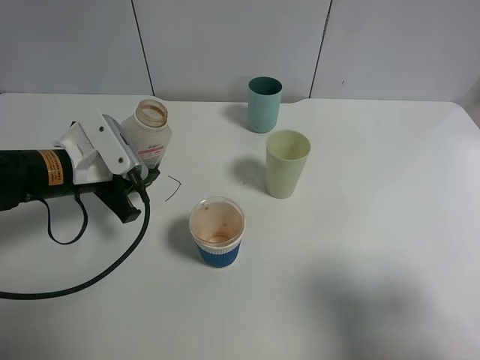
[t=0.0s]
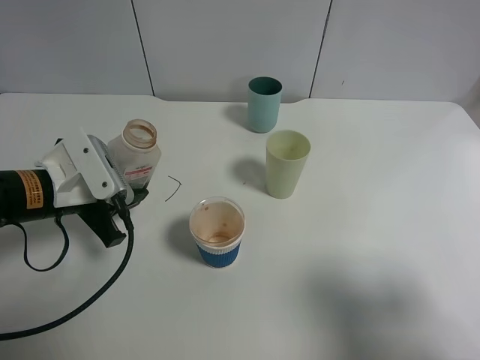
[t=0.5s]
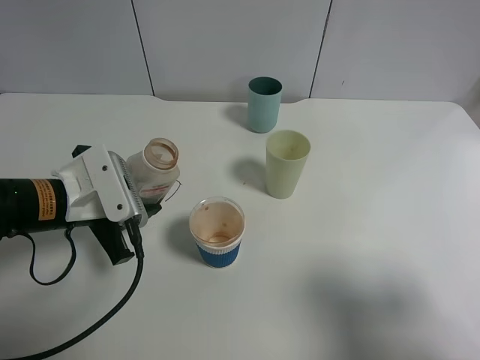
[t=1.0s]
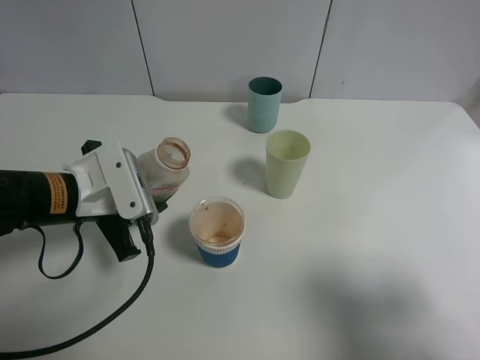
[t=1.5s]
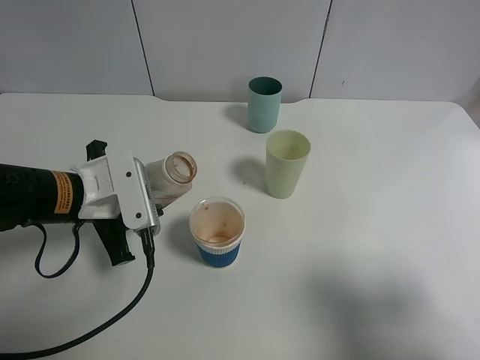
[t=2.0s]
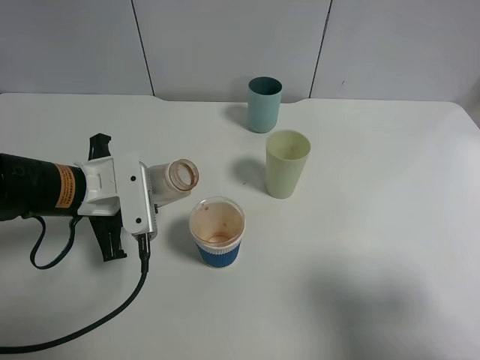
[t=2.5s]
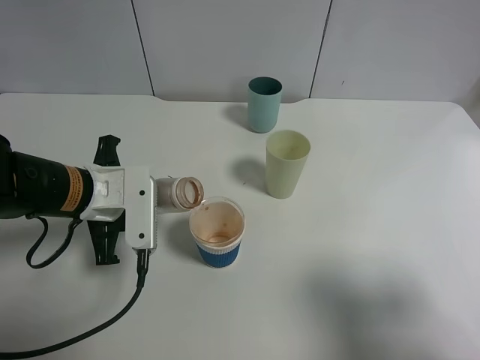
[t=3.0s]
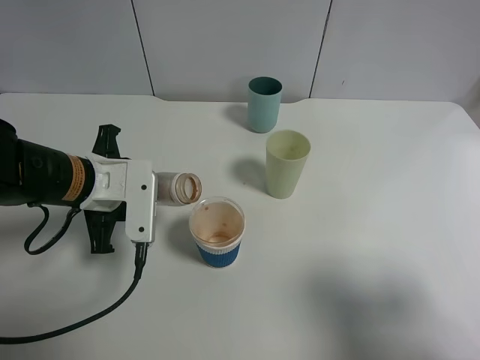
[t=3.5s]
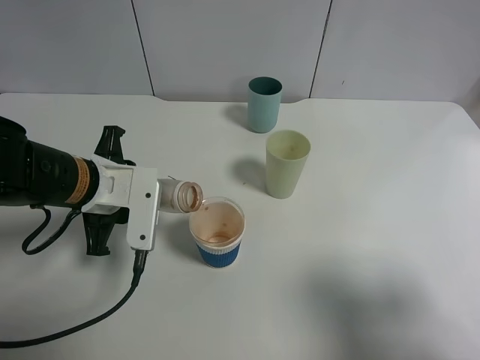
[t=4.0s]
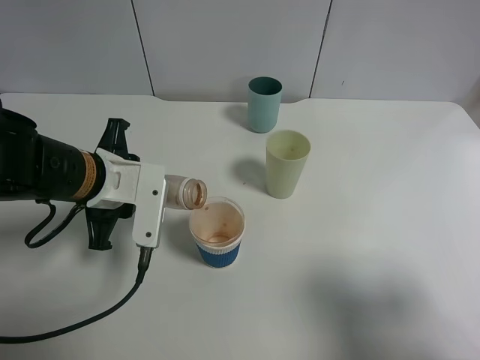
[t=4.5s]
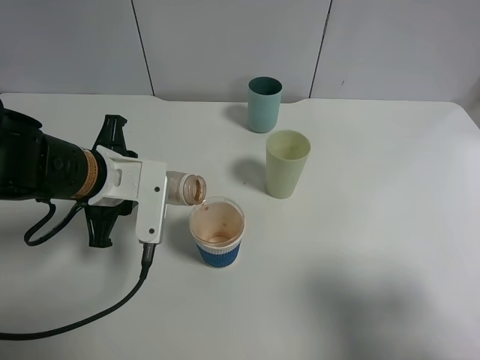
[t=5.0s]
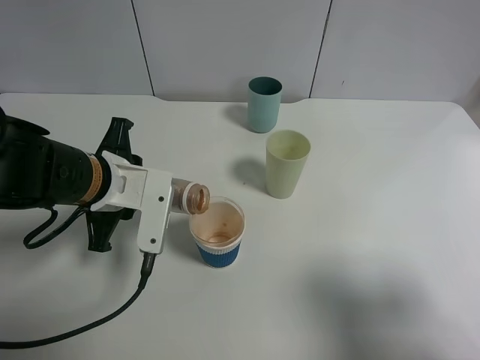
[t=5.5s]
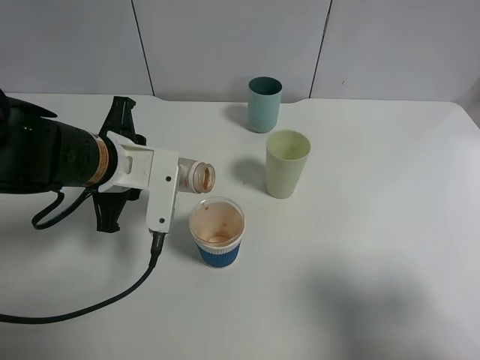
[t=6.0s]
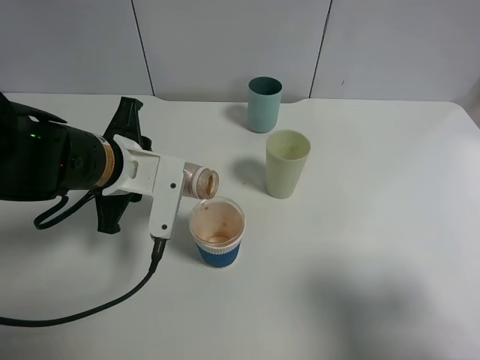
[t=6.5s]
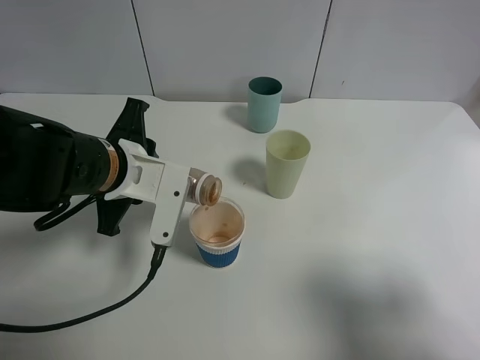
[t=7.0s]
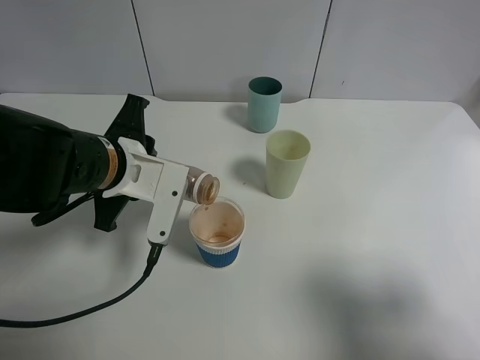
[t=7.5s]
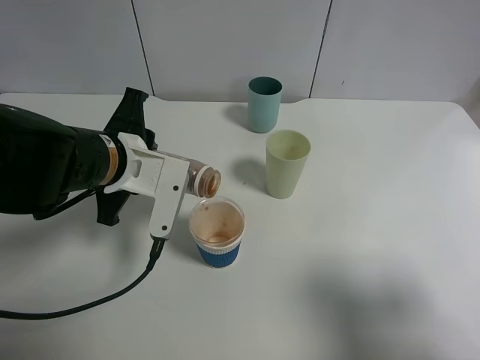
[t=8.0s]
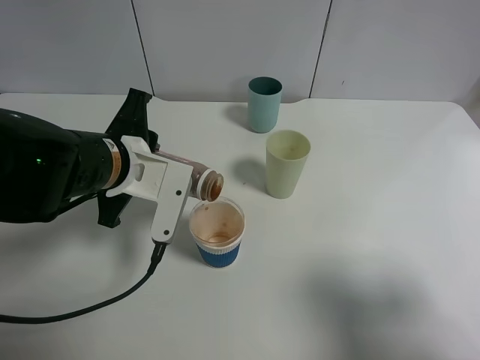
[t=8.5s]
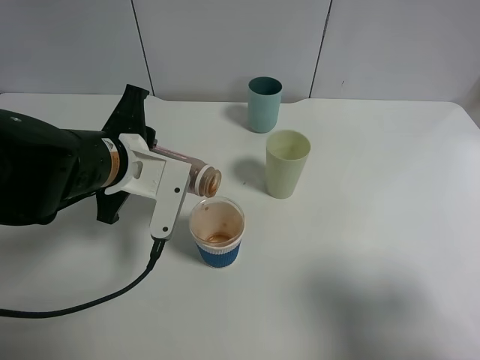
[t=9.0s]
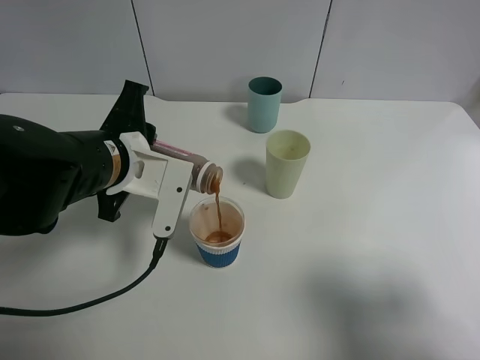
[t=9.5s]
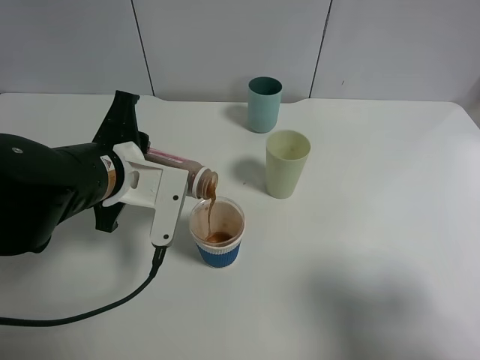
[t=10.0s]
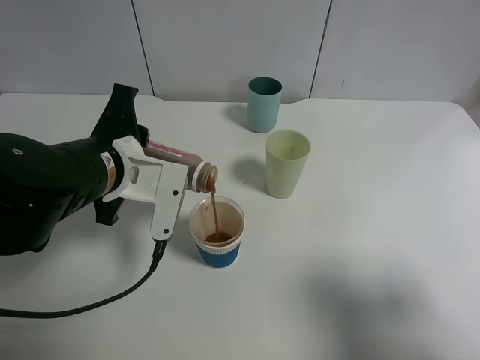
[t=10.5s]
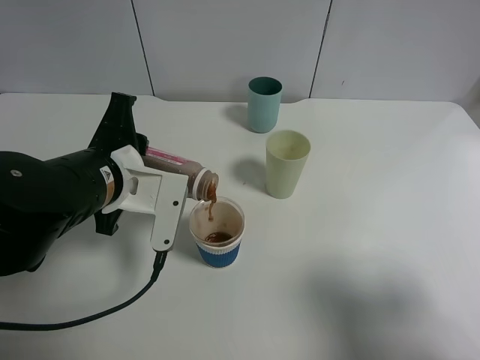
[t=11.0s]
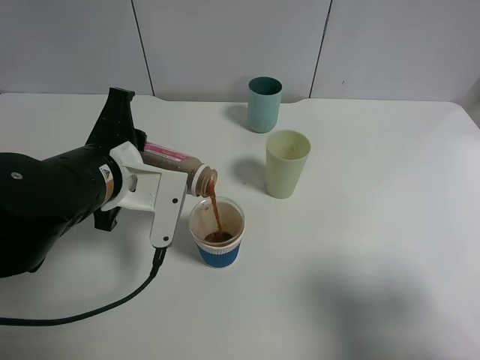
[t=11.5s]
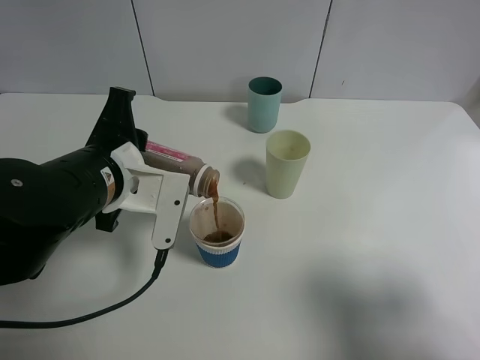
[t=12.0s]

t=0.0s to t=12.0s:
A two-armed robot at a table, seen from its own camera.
Task of the whole recording: use a gripper to hold the bottle of the drink and pour it into a random cup.
t=0.0s to t=2.0s: The grippers make only small movements.
t=4.0s to t=6.0s: The grippers make only small movements.
t=6.0s to t=10.0s: The grippers make only small movements.
t=10.0s to t=12.0s: There are only small adjustments of the grippers.

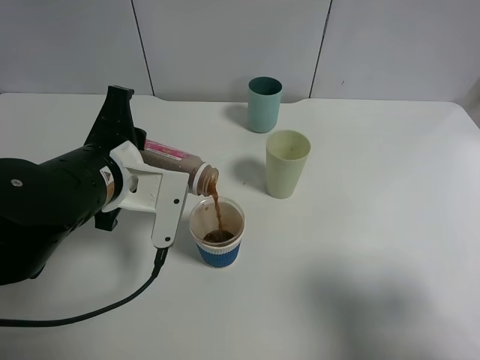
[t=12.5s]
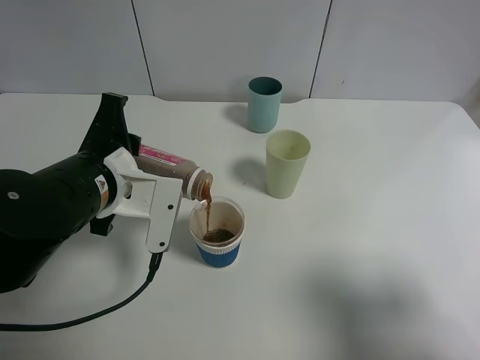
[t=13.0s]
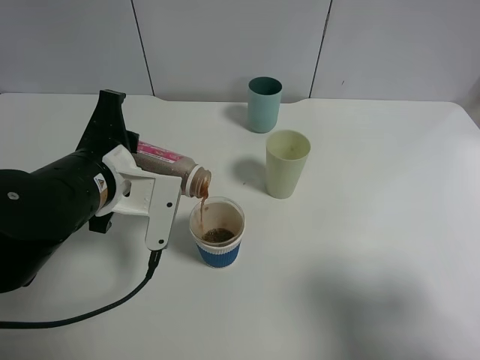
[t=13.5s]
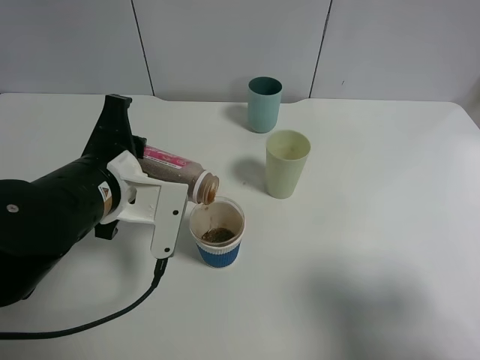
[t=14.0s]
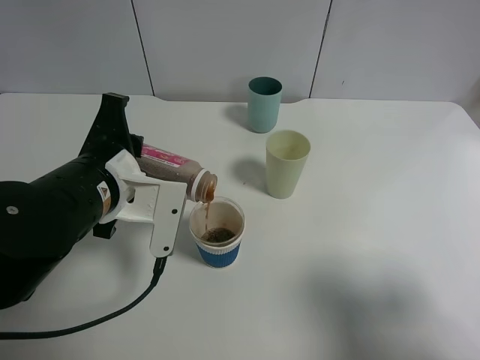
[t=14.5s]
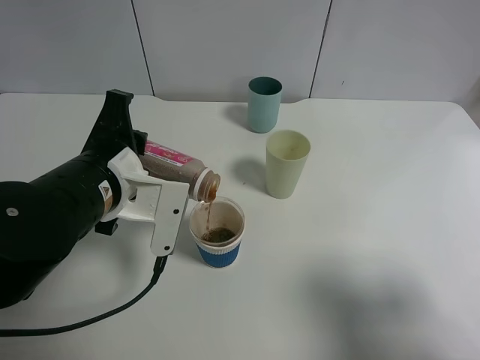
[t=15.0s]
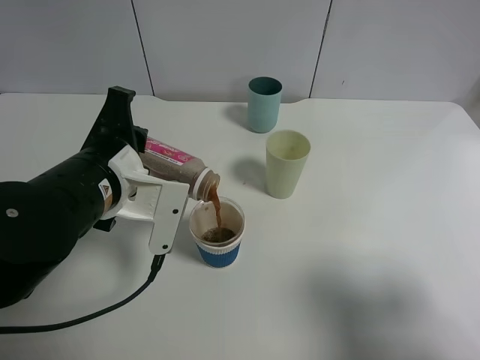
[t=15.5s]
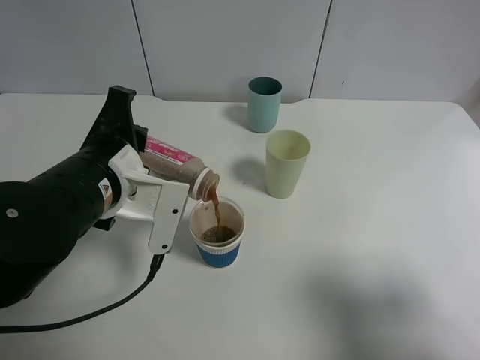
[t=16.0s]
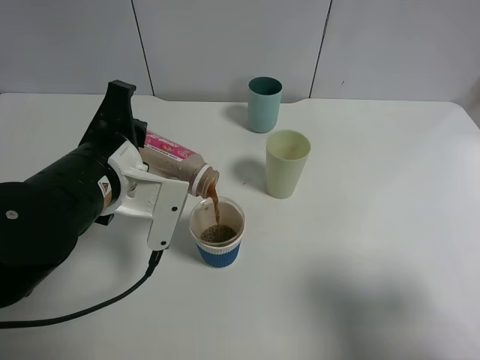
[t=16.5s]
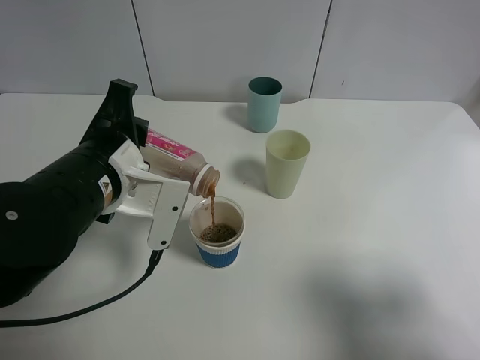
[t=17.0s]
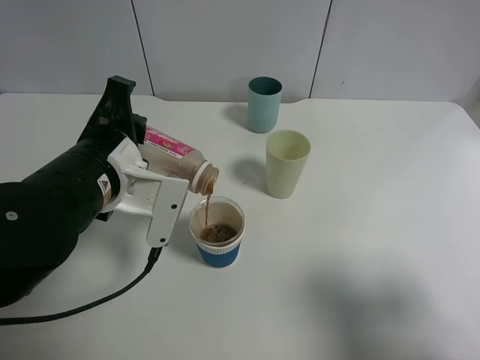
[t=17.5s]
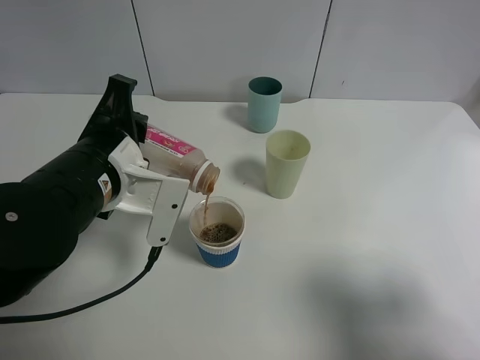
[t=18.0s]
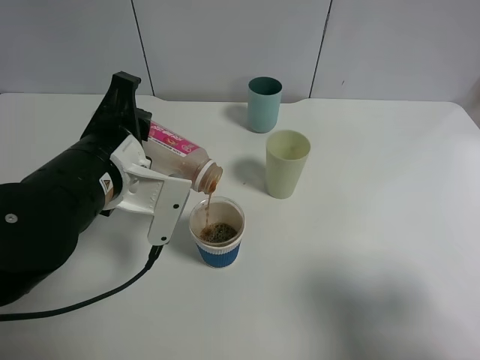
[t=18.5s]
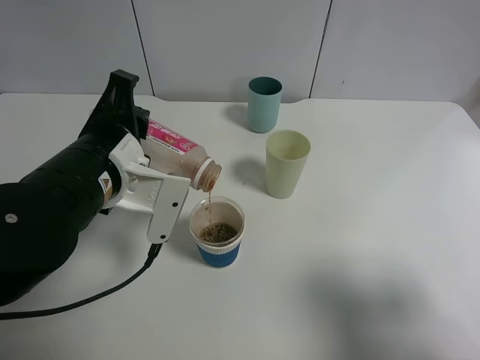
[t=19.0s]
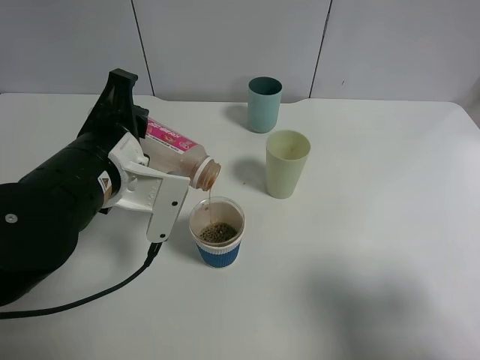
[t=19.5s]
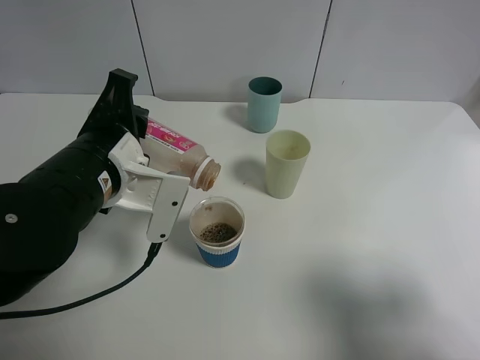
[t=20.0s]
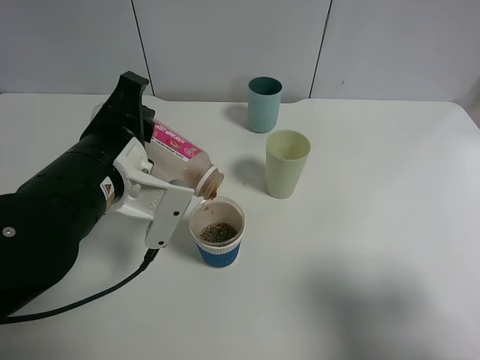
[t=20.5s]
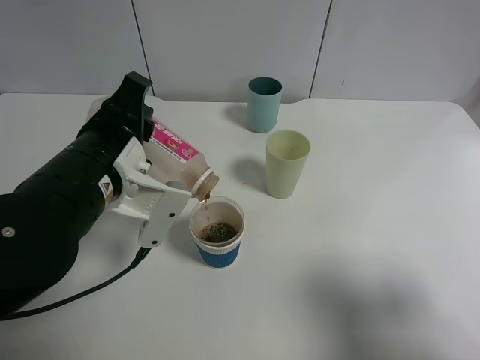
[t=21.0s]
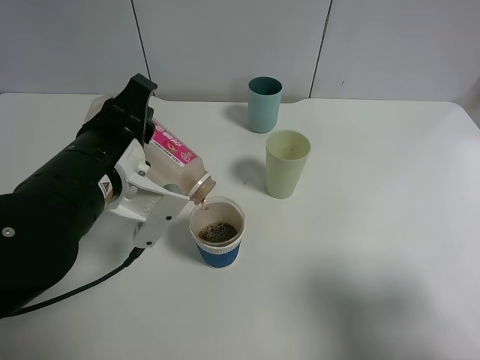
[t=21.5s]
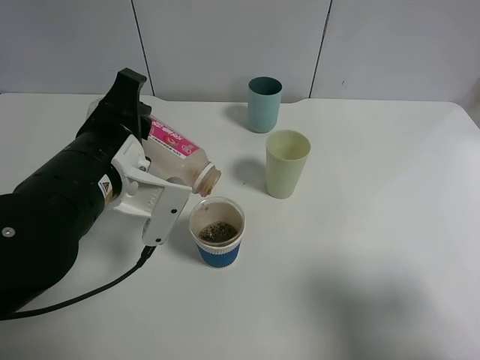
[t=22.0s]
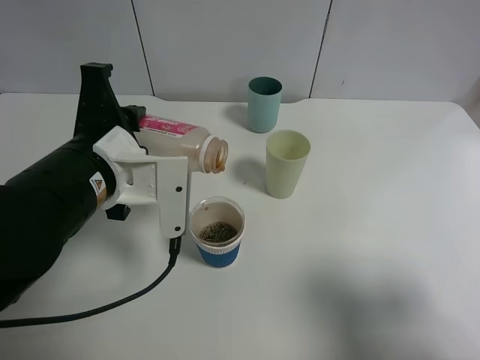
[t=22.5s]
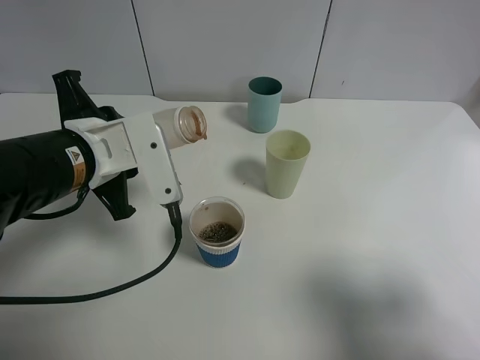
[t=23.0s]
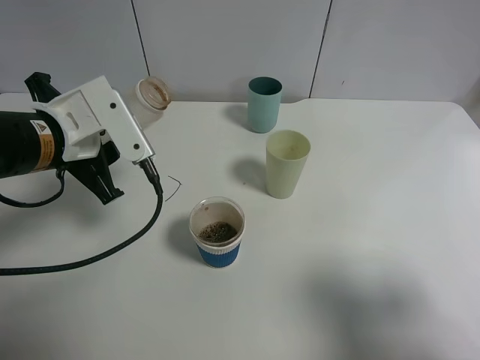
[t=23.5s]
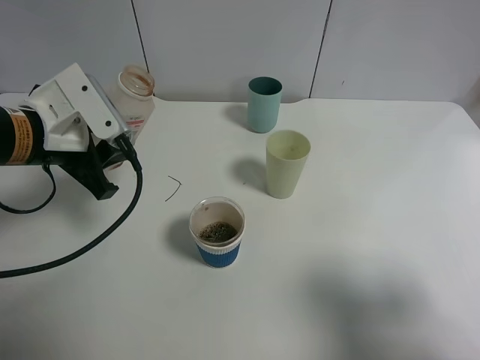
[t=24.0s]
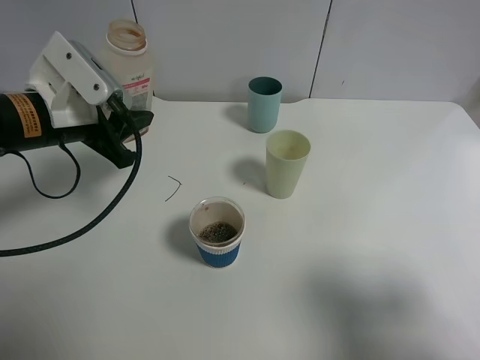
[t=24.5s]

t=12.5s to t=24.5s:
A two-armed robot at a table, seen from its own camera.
Task of the whole recording: use a gripper to hold the bottle of the drink and pour it into a random cup.
Step, t=12.5s to t=22.0s: Pour the cranberry juice into the paper cup with the left gripper.
t=12.5s to t=14.5s: The two grippers keep their place.
t=14.5s to t=16.5s: The grippers move only a little.
t=16.5s to t=18.5s: Both grippers stay about where they are.
t=18.5s to t=20.5s: The grippers make only small movements.
t=22.5s to t=24.5s: The left gripper goes roughly 10 cm forward and to the left.

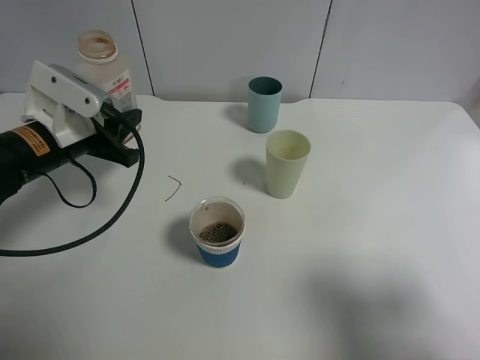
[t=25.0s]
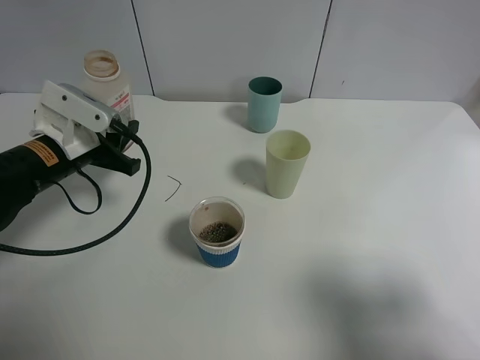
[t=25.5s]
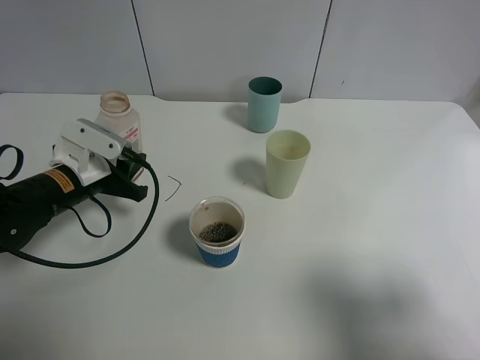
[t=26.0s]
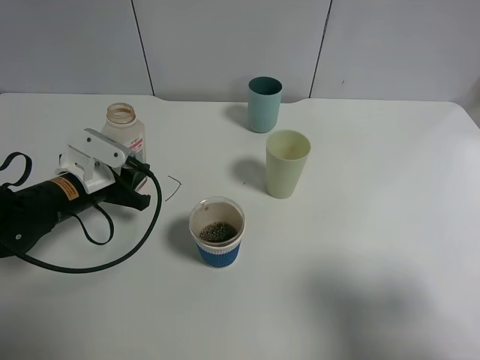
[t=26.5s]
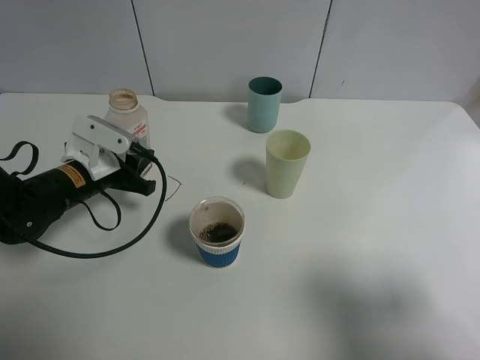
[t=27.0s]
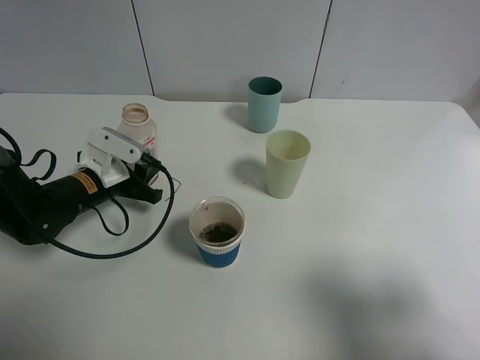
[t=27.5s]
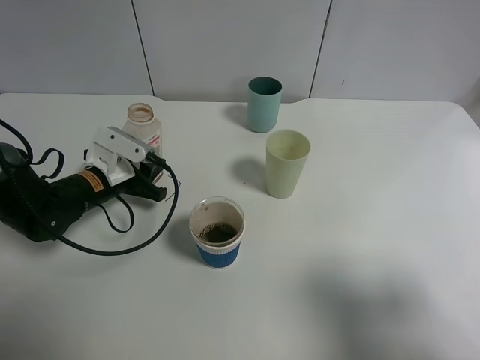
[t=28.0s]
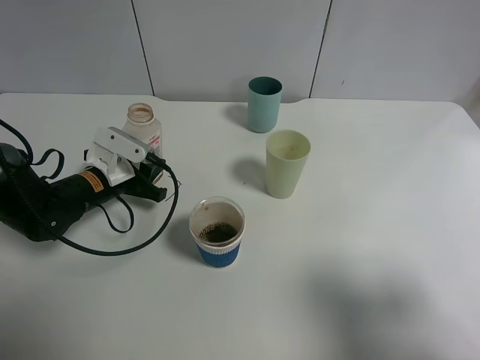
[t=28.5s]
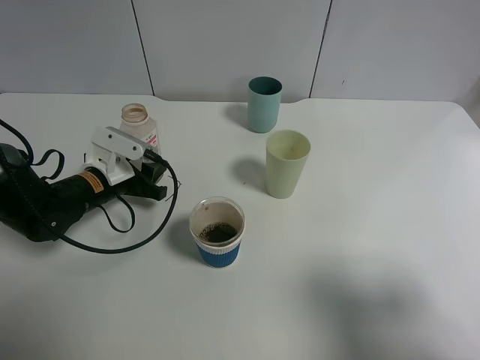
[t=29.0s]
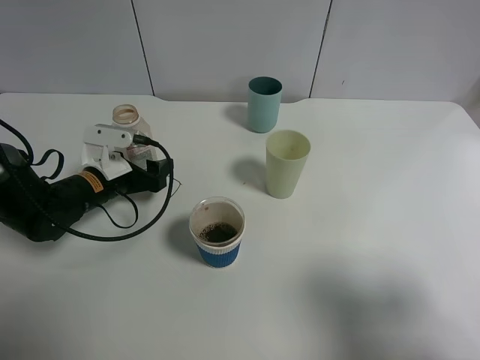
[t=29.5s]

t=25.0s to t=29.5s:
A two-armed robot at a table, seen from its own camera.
Task of the whole recording: use a gripper to hold the bottle of the drink and pour it into a random cup.
t=25.0s to t=27.0s: The left gripper shifts some 10 cm downward.
t=27.0s to t=29.5s: The left gripper opens up.
